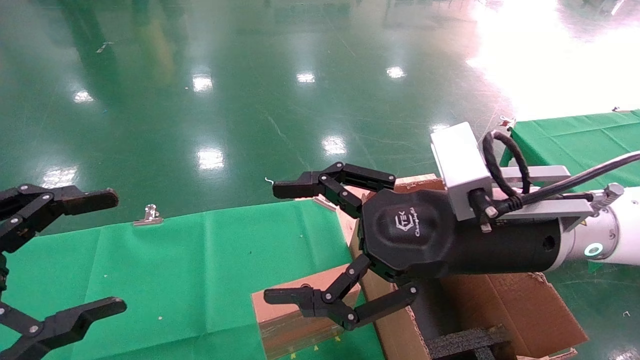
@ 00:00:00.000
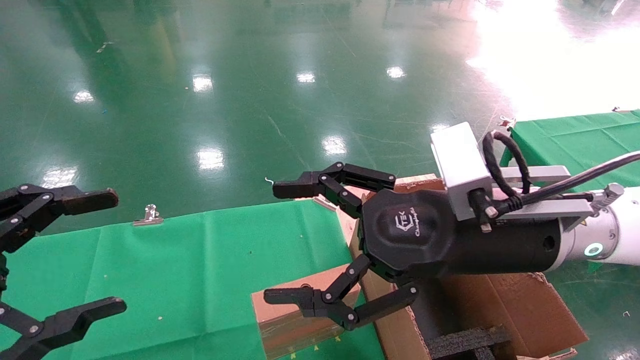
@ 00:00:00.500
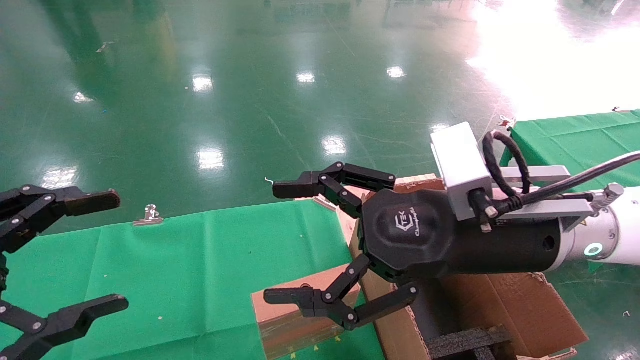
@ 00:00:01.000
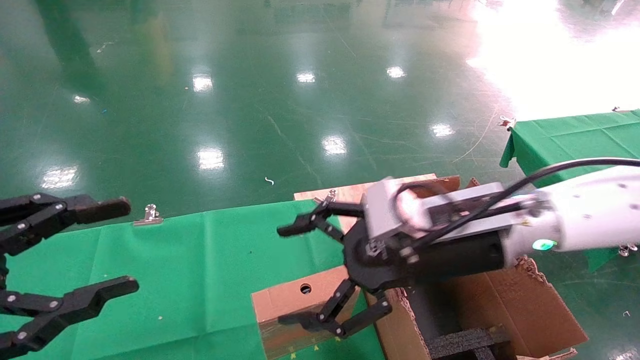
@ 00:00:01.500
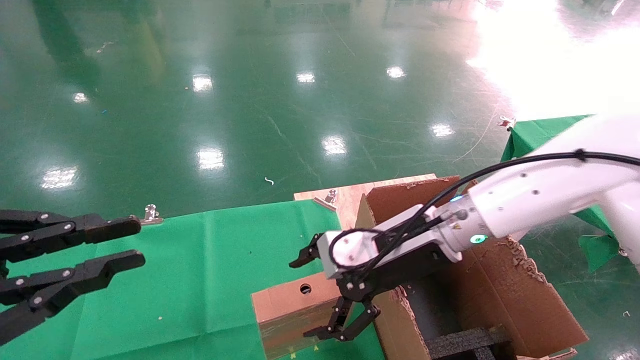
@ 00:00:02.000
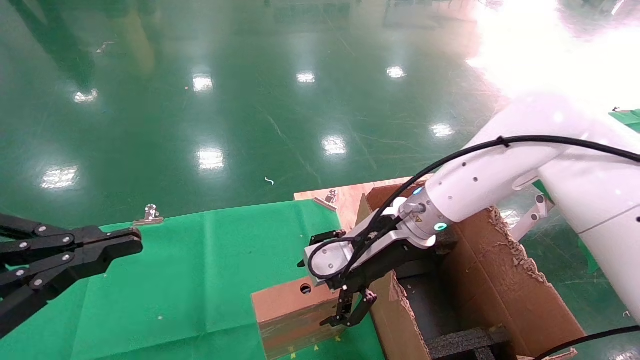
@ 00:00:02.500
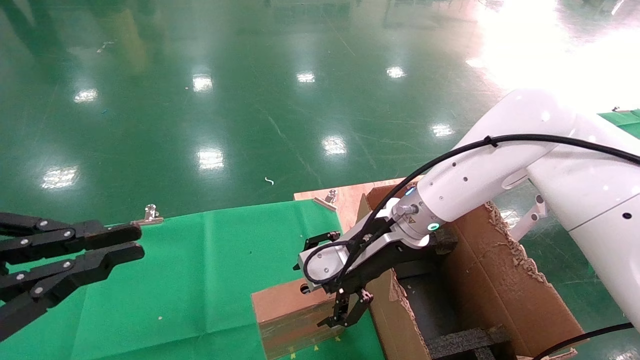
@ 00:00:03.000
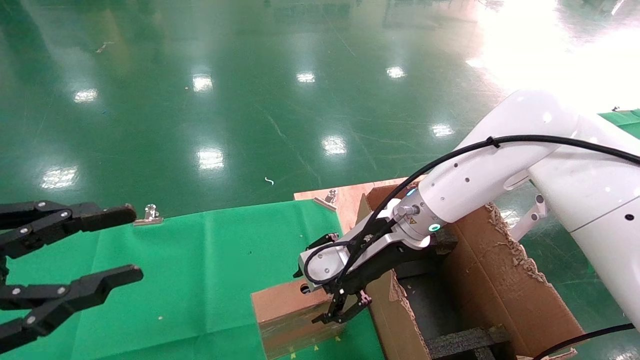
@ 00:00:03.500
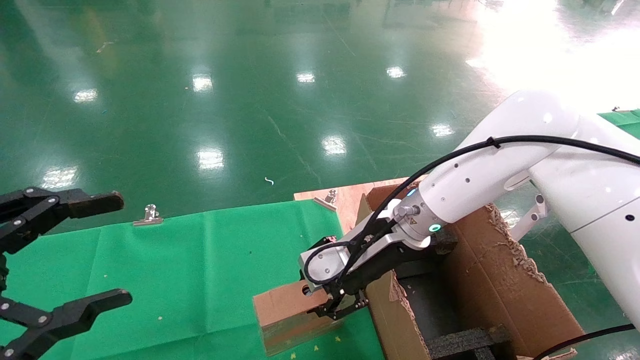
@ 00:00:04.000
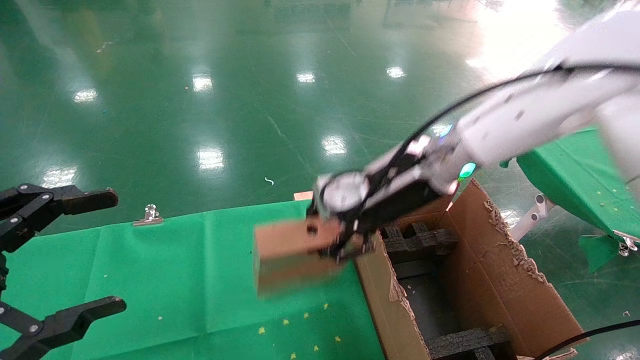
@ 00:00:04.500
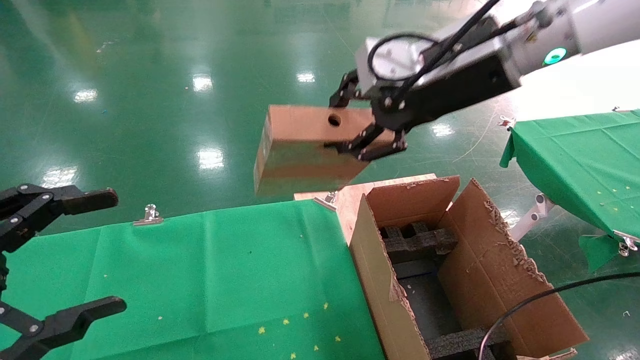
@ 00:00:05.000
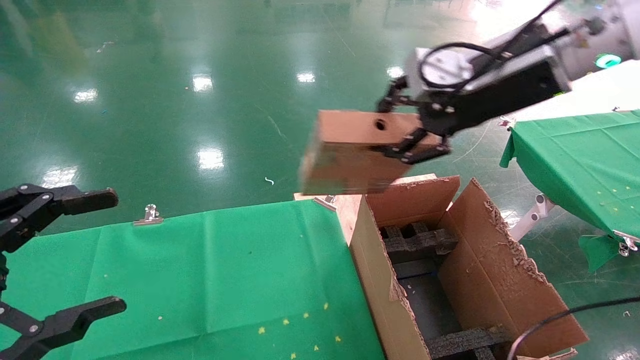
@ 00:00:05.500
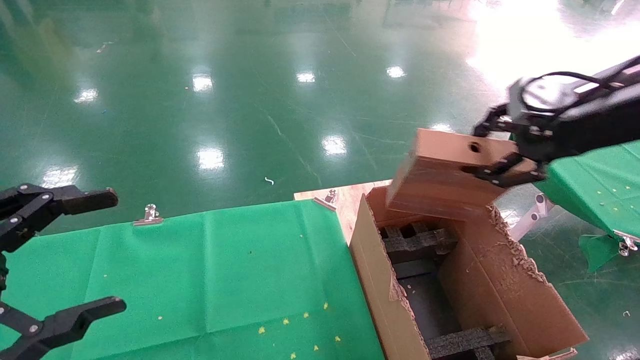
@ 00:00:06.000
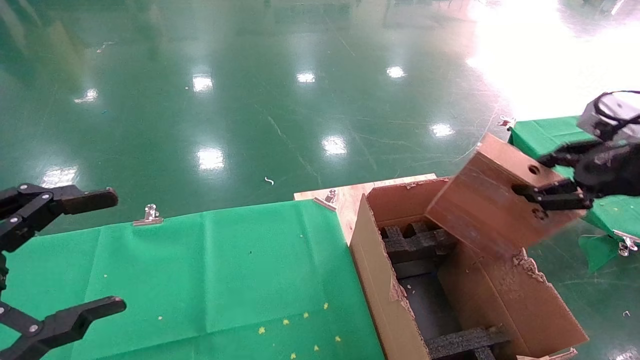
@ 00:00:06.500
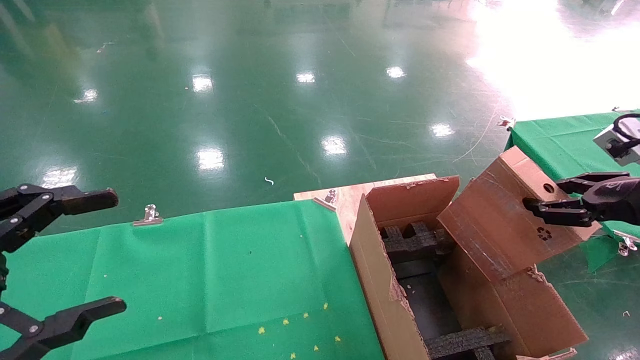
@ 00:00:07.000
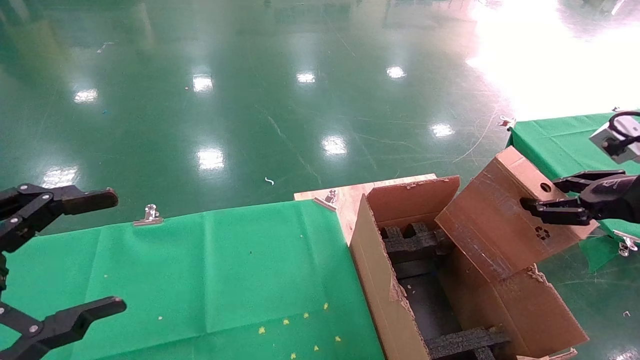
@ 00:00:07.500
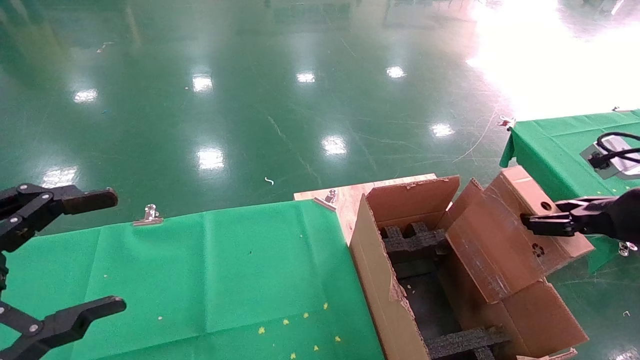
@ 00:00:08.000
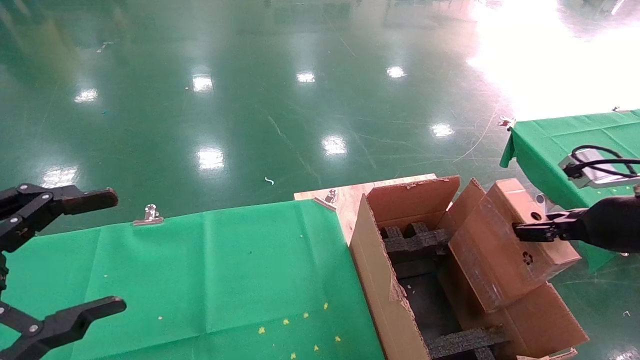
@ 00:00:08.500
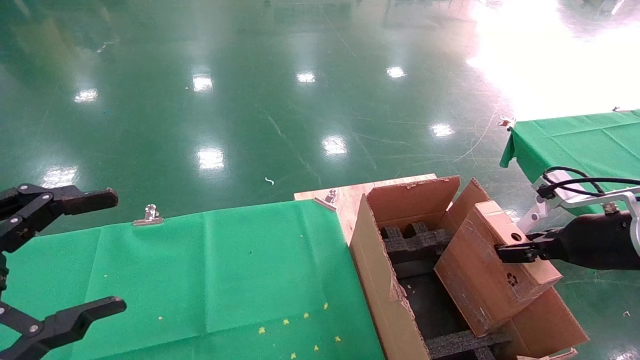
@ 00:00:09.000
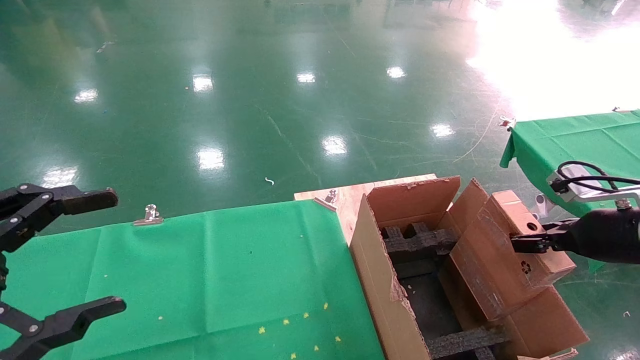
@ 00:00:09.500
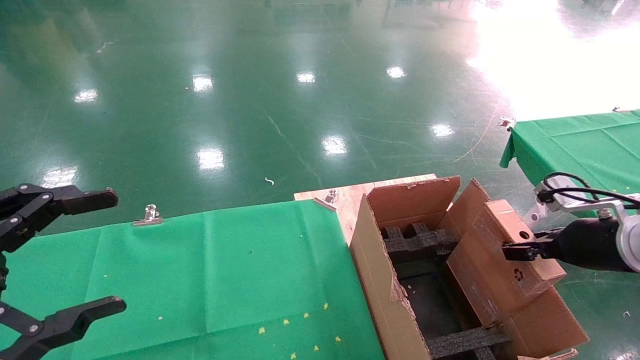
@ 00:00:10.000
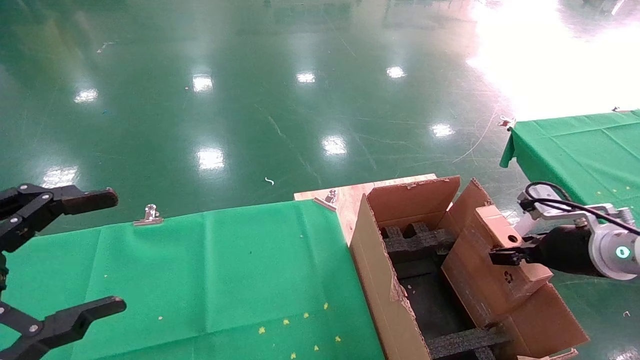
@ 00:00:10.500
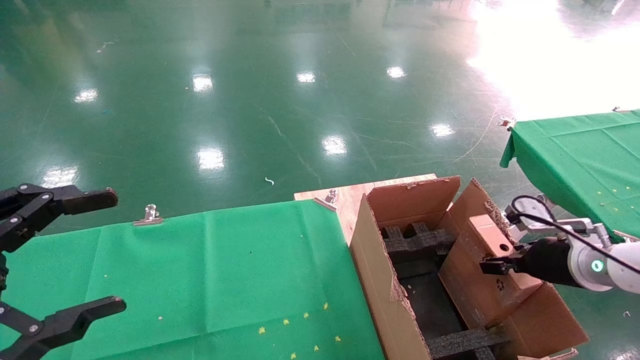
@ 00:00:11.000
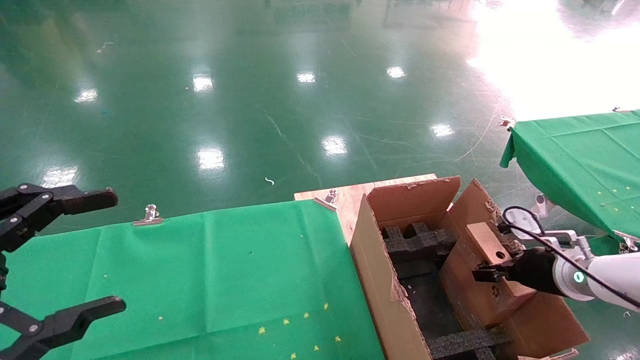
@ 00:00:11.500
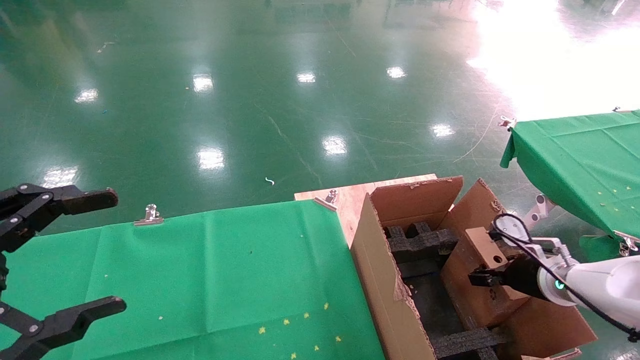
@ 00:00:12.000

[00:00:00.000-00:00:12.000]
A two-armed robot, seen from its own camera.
Task of the whole recording: using a robotic arm to pick up a cardboard box and palace it the carton.
Step, 00:00:02.000 to 00:00:04.000: Pick up the mouse and the power cord paper box.
00:00:00.000 to 00:00:02.000: The left gripper closes. The right gripper travels forward and downward by roughly 10 cm.
00:00:02.000 to 00:00:04.000: The right gripper closes. The left gripper opens its fingers.
00:00:04.000 to 00:00:06.000: The right gripper shifts approximately 30 cm to the right, upward and backward.
00:00:06.000 to 00:00:08.000: The right gripper heads downward and to the right, covering roughly 15 cm.
00:00:08.000 to 00:00:10.000: The right gripper goes approximately 10 cm downward and forward.
00:00:10.000 to 00:00:12.000: The right gripper heads downward and forward, covering approximately 10 cm.

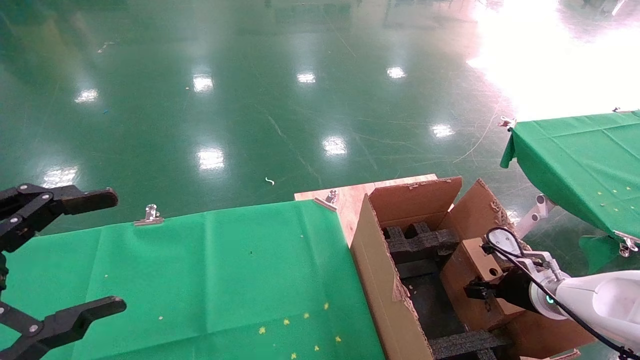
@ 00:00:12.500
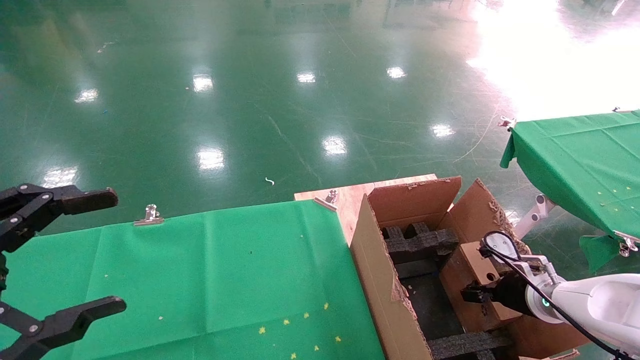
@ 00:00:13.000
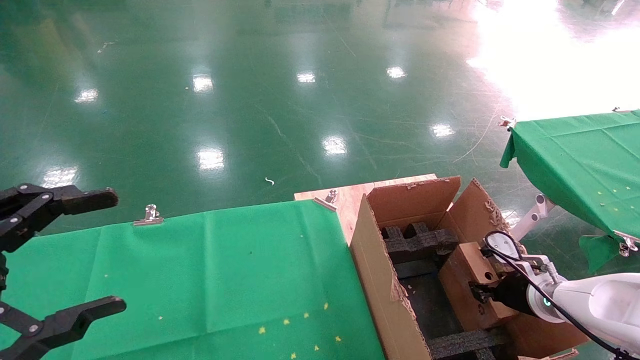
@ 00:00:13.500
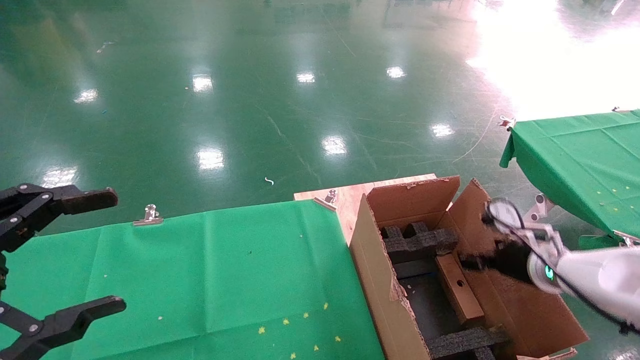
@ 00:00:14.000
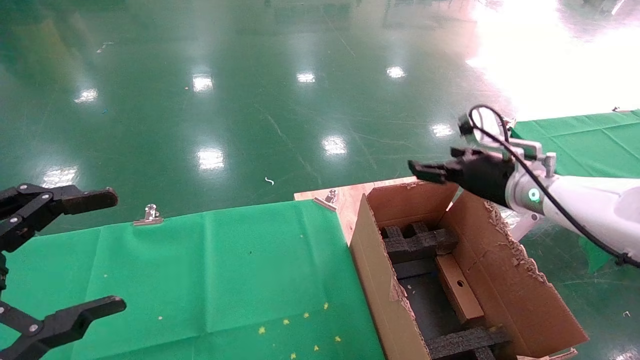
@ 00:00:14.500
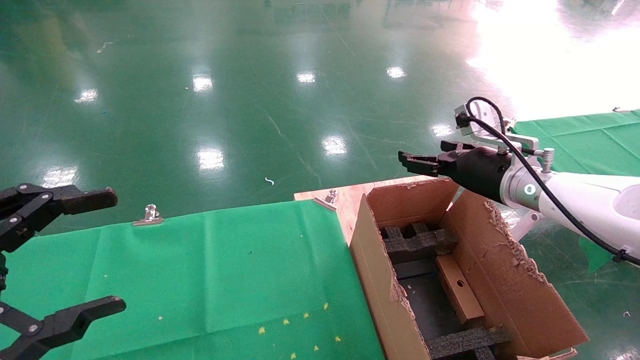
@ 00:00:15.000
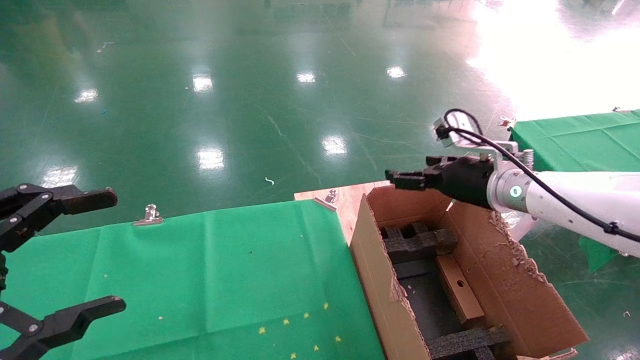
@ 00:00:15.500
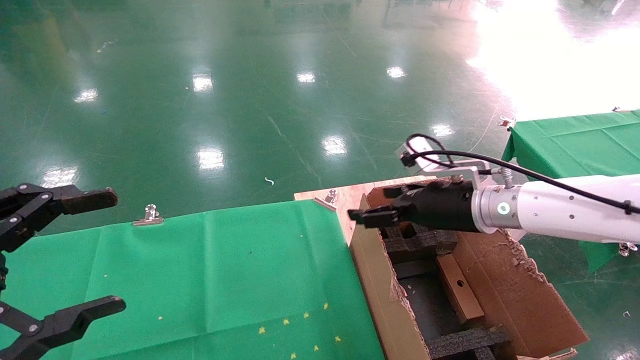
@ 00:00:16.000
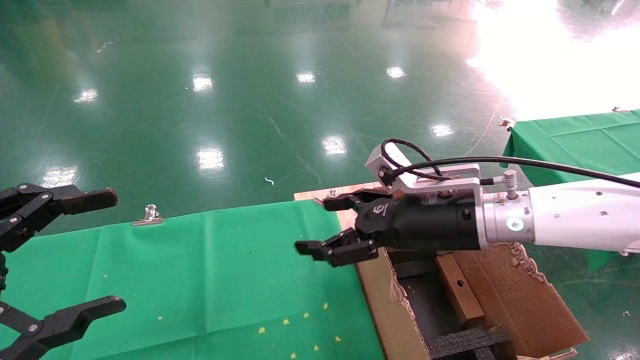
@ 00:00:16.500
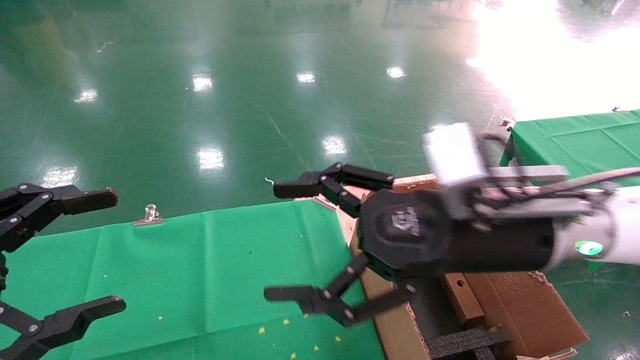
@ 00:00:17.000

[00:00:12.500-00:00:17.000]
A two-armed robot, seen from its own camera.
Task of the whole recording: using a robotic arm to pick up a cardboard box and palace it the carton.
00:00:12.500 to 00:00:14.500: The right gripper goes some 15 cm upward, and opens its fingers.
00:00:14.500 to 00:00:17.000: The right gripper travels to the left and backward by some 20 cm.
